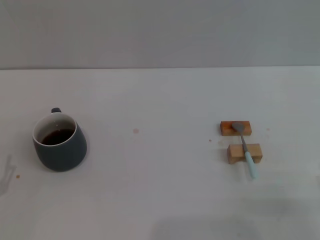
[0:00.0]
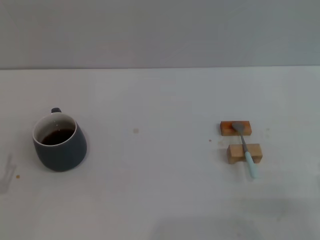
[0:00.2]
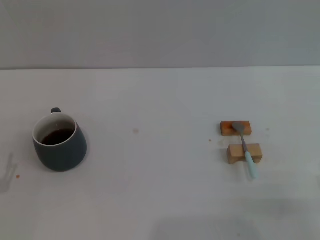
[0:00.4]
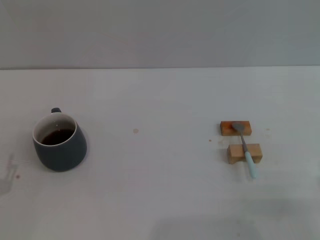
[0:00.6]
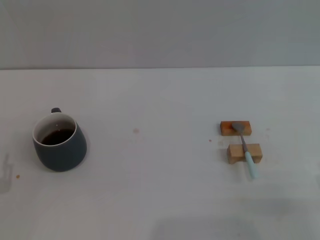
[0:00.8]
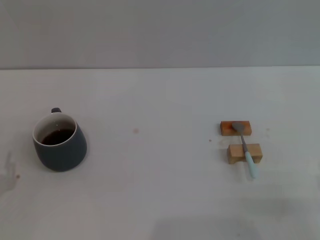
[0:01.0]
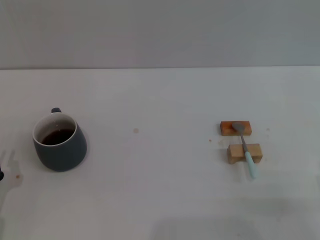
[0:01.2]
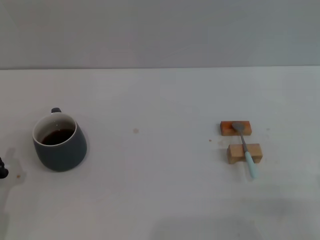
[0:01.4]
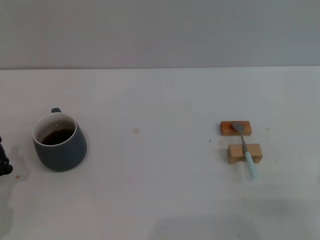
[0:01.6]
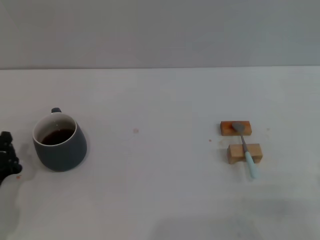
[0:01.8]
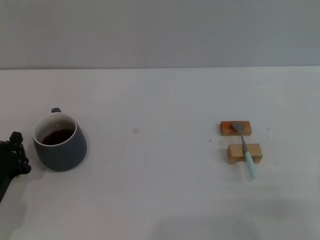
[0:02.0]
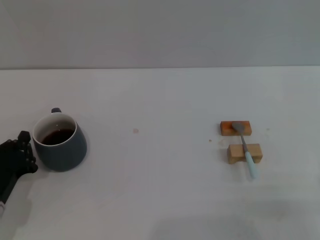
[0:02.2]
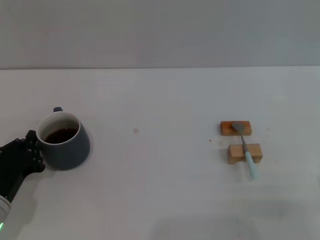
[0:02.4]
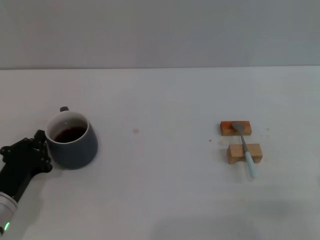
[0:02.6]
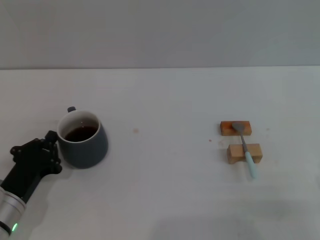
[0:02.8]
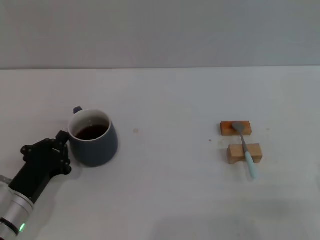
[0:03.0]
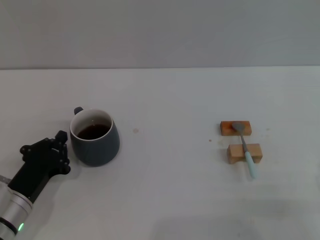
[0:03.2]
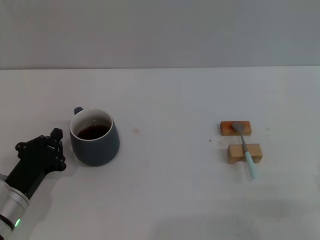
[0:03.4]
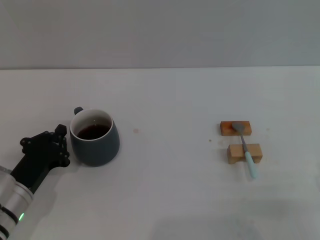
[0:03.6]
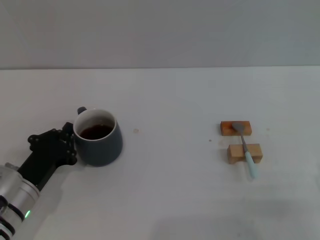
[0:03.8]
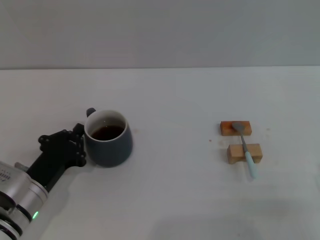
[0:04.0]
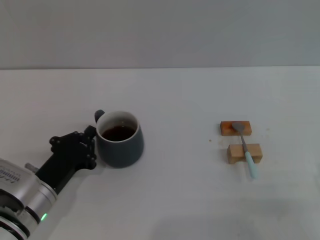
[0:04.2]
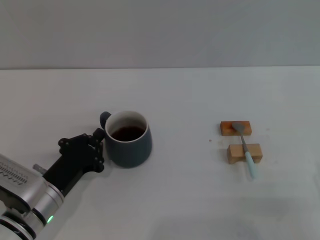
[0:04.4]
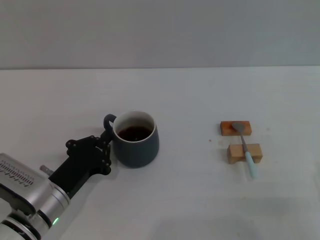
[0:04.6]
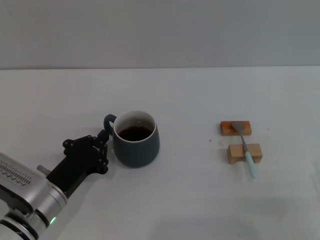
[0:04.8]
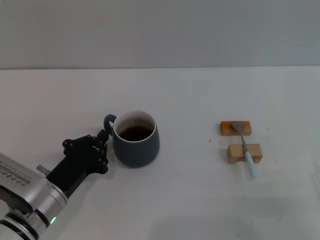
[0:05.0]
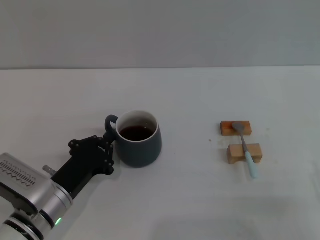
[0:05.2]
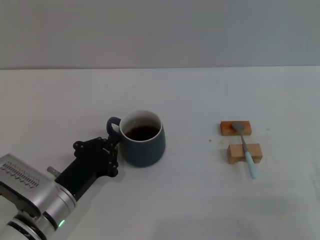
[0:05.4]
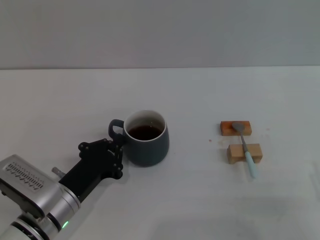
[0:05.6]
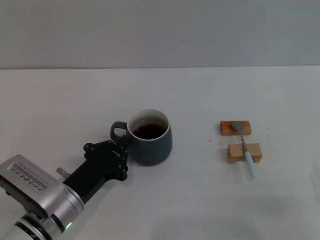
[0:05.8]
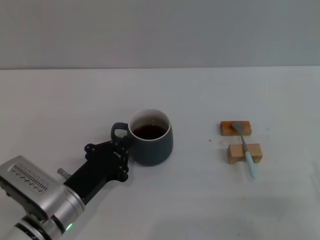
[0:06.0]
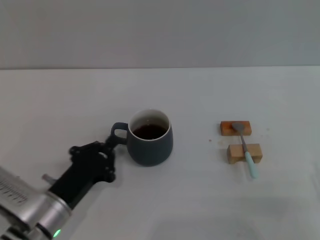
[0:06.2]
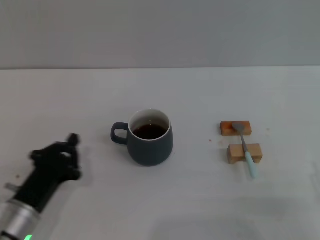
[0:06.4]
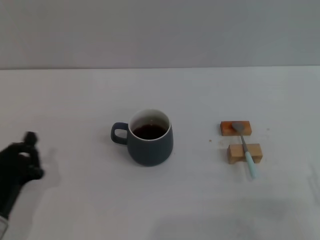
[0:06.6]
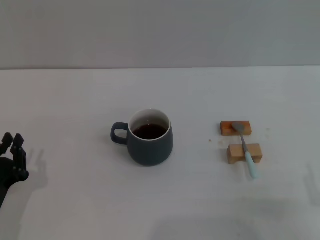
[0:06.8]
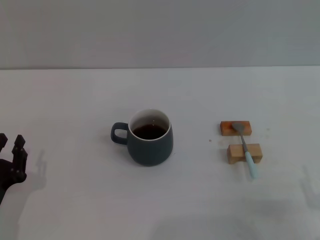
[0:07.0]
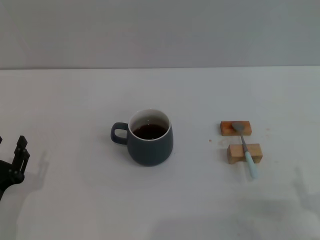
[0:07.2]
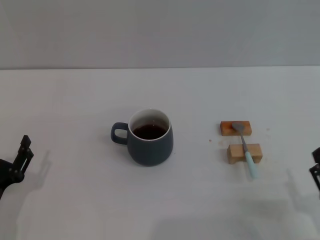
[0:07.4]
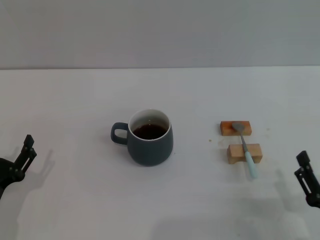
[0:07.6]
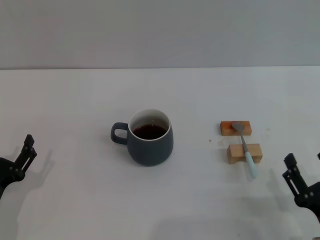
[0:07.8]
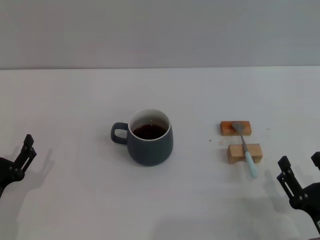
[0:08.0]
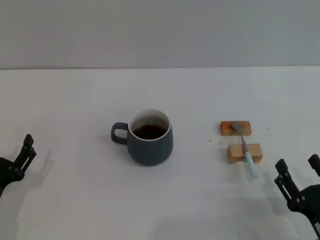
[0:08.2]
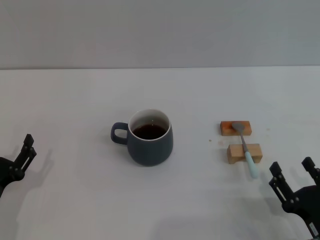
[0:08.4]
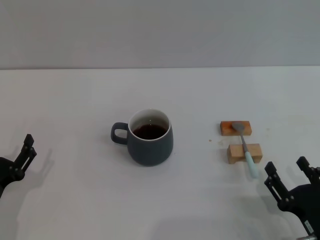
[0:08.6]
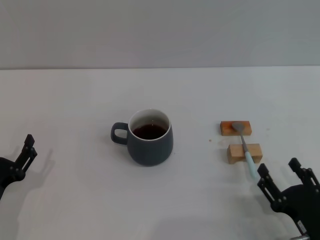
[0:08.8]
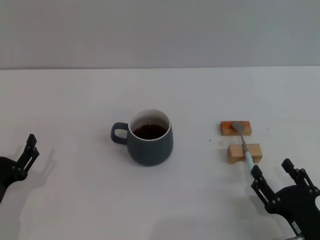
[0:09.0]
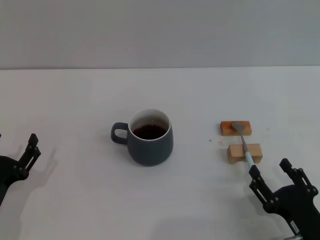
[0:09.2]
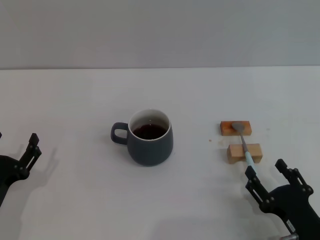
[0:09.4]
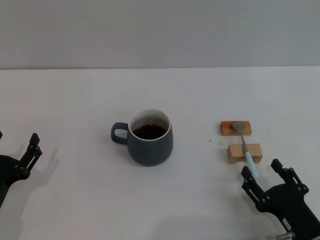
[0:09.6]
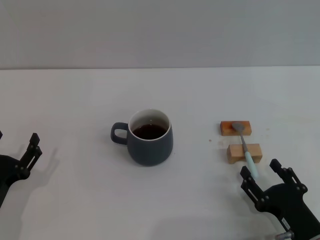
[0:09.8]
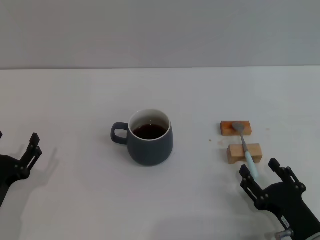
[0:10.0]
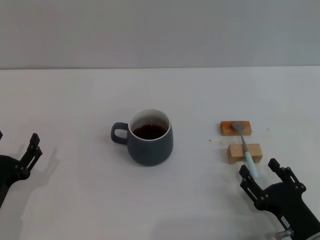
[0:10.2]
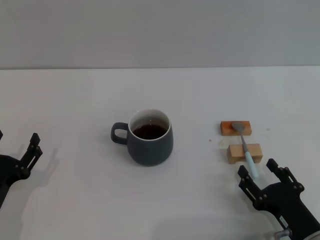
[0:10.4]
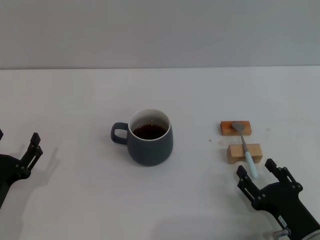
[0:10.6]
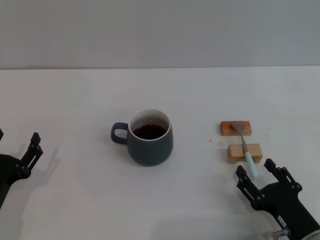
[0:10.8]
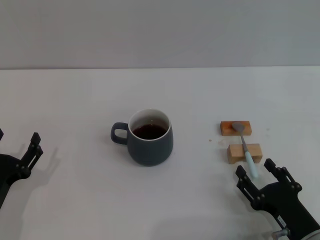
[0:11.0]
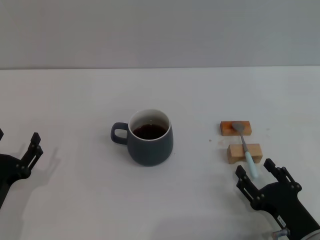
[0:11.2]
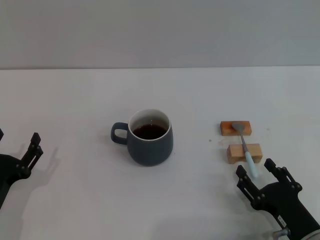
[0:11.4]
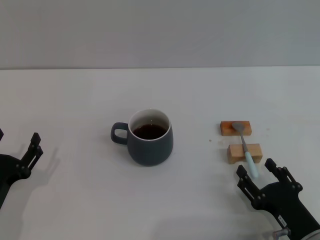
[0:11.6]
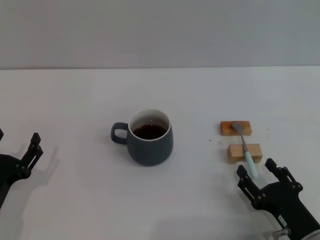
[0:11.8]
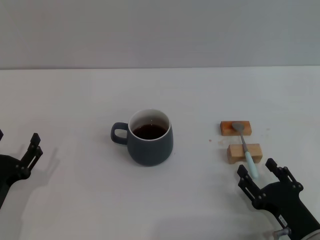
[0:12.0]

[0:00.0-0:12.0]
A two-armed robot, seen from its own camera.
Task of the whole recording: Move the grey cup to the center, lift the blue spoon, stir it three times in the cup, and put the spoon into the cup.
Step, 0:00.0 to 0:06.4: Move the cup with coffee to the center of view with the left gripper.
0:01.6 to 0:03.0: The left gripper shifts about 5 cm to the right.
0:03.0 to 0:04.4: The grippers stay close to where they were, moving slightly.
0:04.4 to 0:06.0: The grippers stay close to where they were, moving slightly.
0:06.0 to 0:07.6: The left gripper shifts some 10 cm to the left and backward, and opens.
0:07.6 to 0:10.4: The grippers make only small movements.
0:10.4 to 0:12.0: Both grippers stay put.

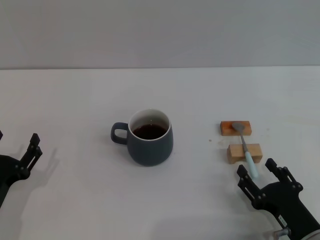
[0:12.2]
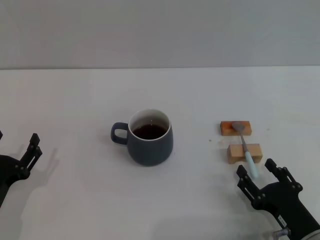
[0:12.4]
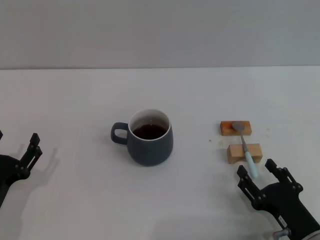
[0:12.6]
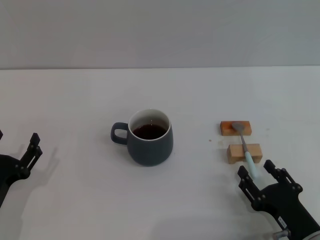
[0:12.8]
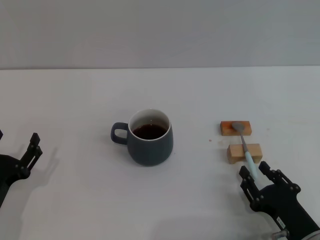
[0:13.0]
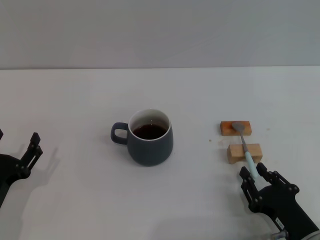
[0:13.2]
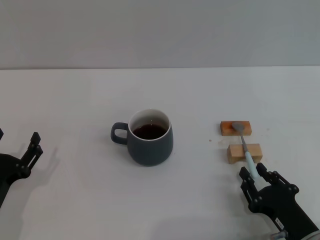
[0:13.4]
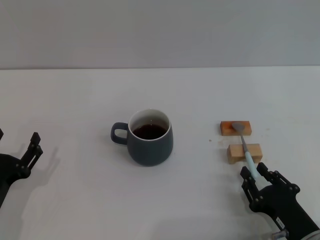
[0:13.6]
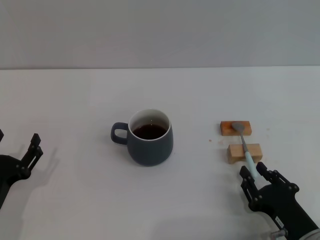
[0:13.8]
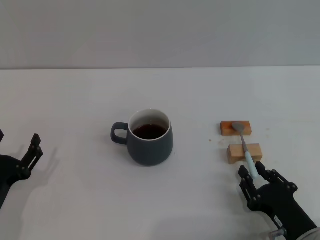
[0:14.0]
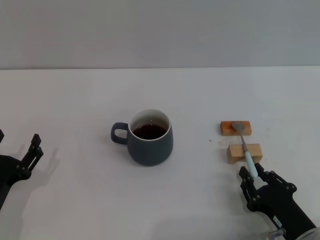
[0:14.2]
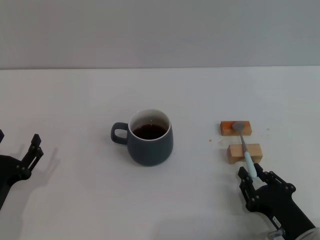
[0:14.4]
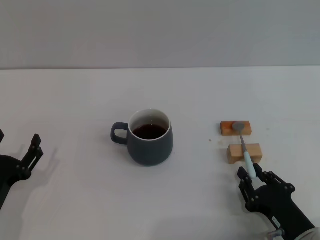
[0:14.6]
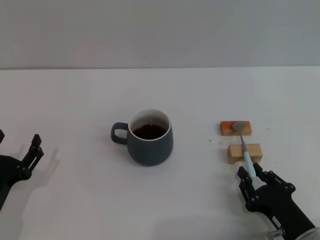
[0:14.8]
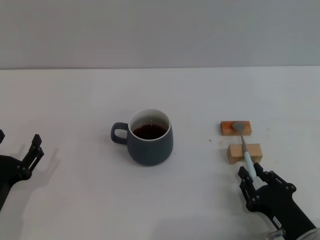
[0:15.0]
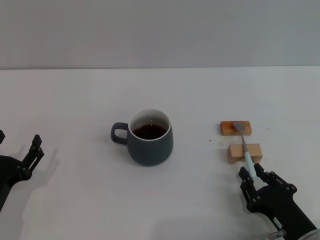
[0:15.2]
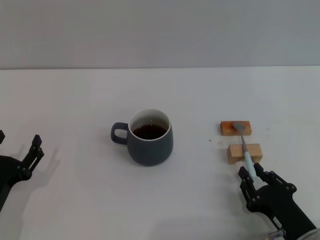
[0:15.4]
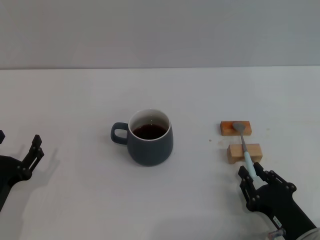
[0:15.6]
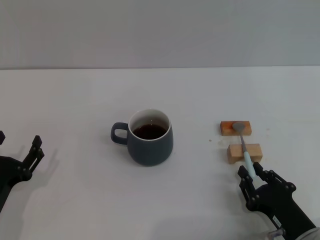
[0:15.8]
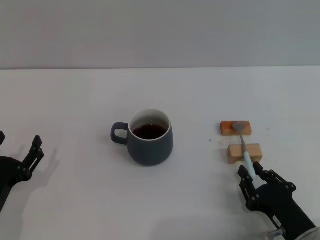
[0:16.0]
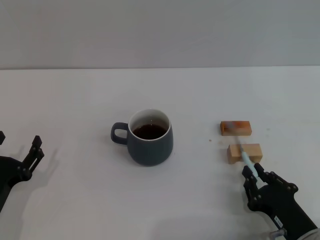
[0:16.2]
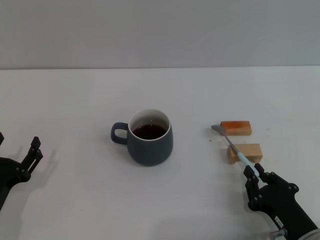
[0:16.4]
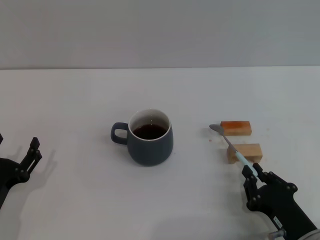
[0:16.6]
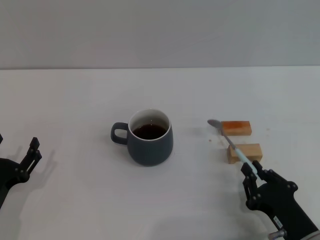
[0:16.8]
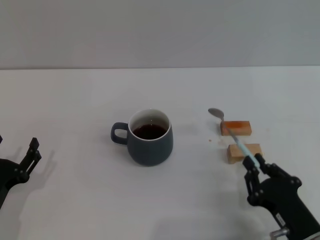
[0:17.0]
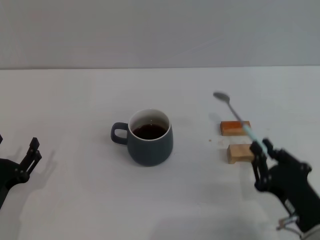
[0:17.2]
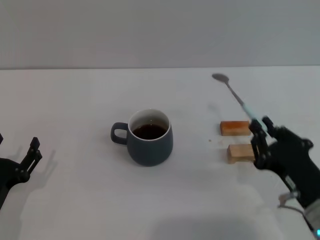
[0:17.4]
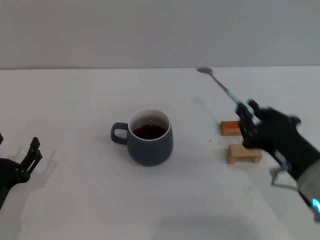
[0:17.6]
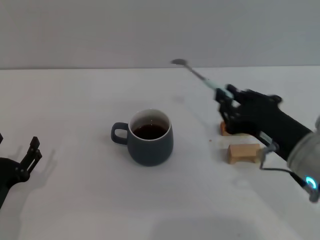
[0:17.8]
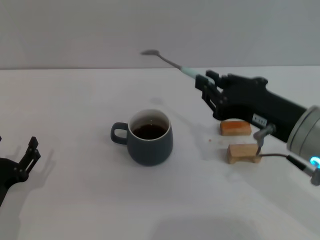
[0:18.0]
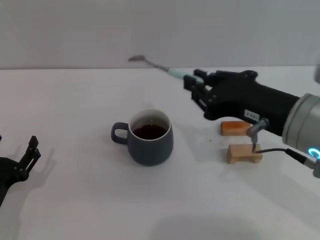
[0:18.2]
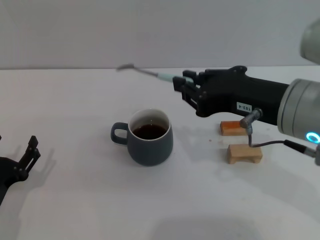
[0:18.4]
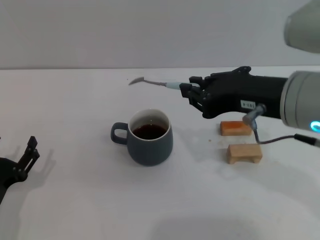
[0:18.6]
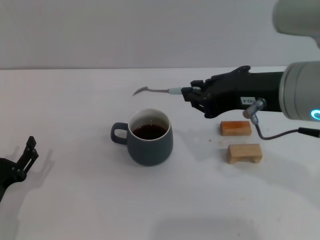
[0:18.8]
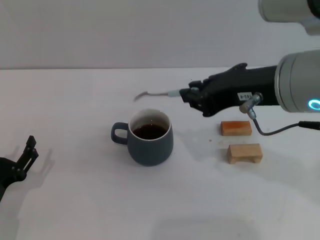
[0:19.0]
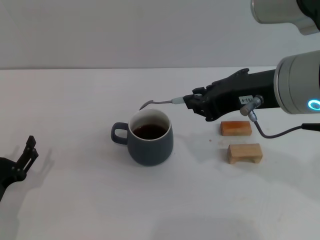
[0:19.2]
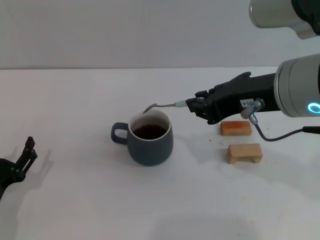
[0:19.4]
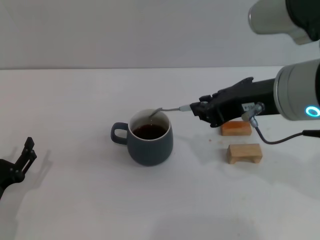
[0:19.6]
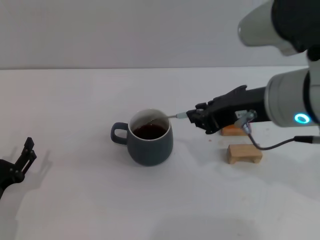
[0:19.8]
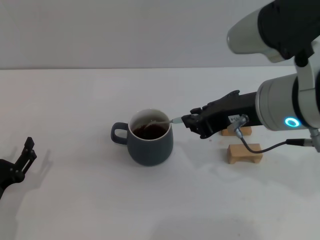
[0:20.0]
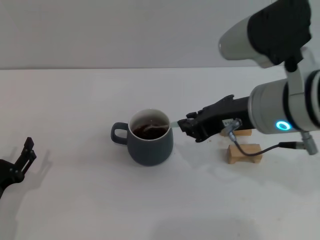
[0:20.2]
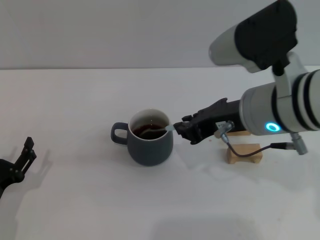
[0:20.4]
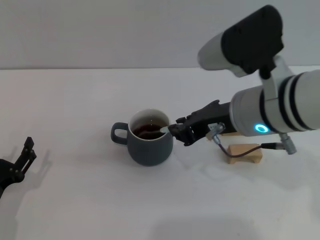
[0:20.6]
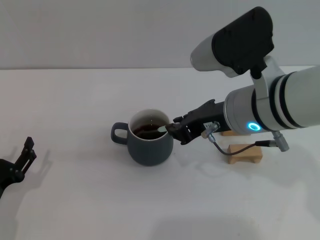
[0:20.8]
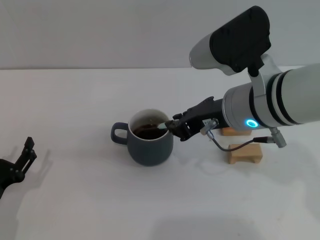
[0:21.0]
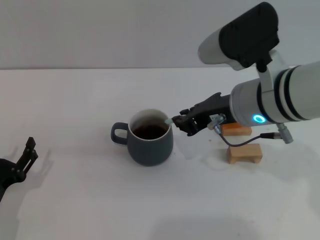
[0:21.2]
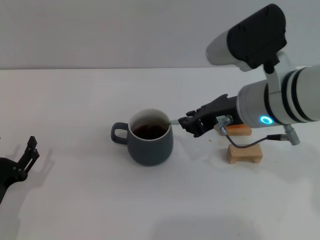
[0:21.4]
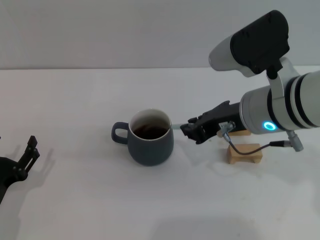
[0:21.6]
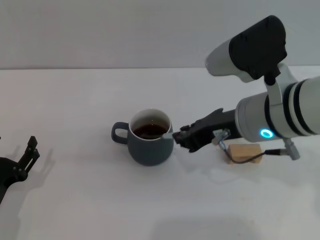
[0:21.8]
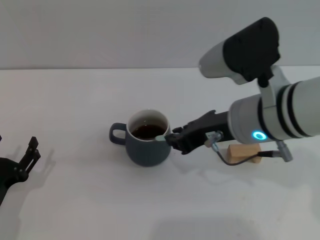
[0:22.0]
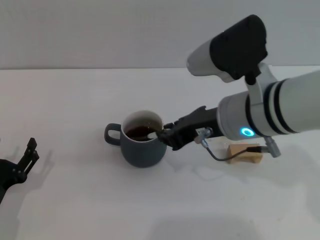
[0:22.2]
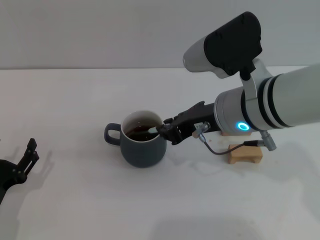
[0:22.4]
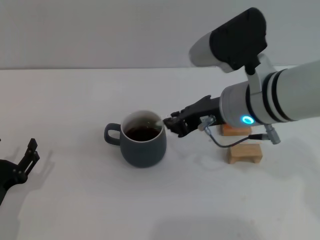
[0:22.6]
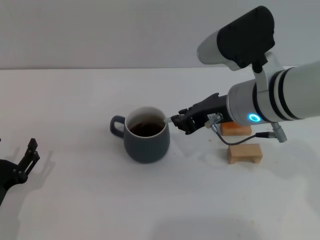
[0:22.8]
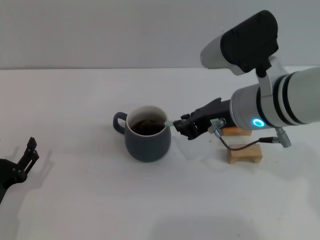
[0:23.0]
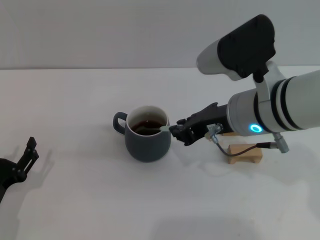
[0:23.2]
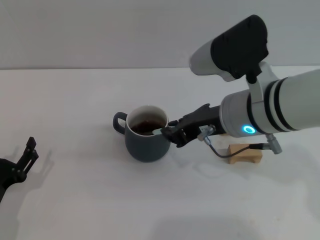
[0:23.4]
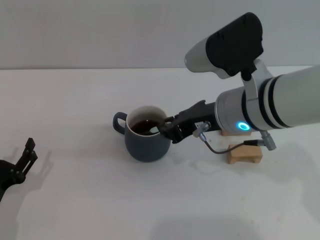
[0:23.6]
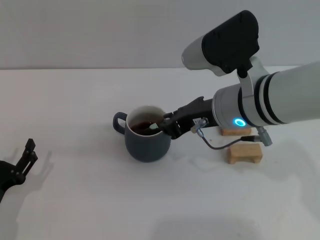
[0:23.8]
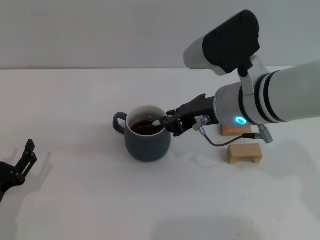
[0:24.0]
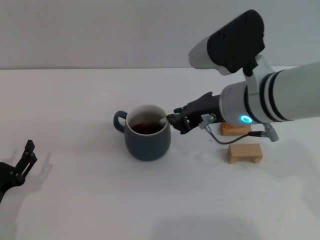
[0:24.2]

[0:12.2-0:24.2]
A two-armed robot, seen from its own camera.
Task of the whole recording: Move the grey cup to the center, lift the blue spoon, stir it three times in the cup, and put the spoon into the cup.
Step, 0:12.2 to 0:17.2: Pick up the spoon with the right gripper.
0:12.2 to 0:13.8: The right gripper closes up.
0:13.8 to 0:16.6: Neither gripper changes place.
0:16.6 to 0:18.2: The right gripper is displaced upward by about 20 cm.
0:18.2 to 0:19.8: The right gripper changes place by approximately 5 cm.
0:19.8 to 0:21.2: The right gripper shifts by approximately 5 cm.
0:21.2 to 0:22.6: There are only small adjustments of the grippers.
0:22.6 to 0:24.2: Both grippers stay put.
